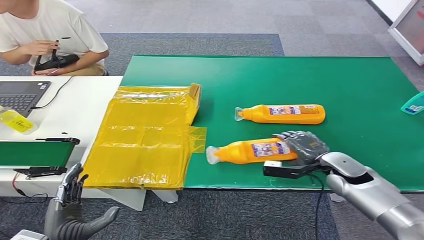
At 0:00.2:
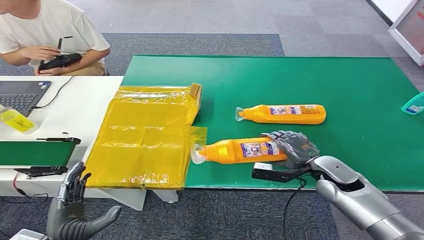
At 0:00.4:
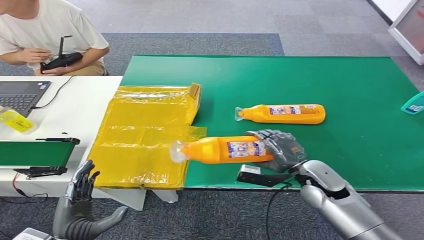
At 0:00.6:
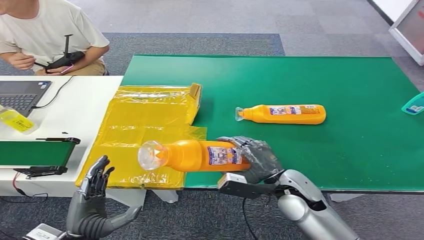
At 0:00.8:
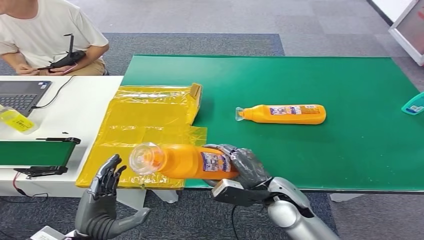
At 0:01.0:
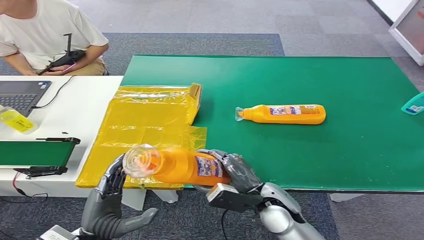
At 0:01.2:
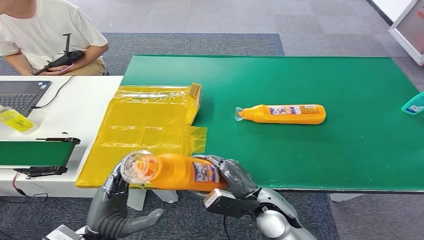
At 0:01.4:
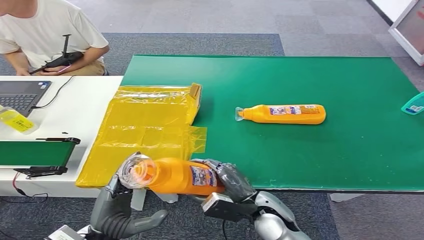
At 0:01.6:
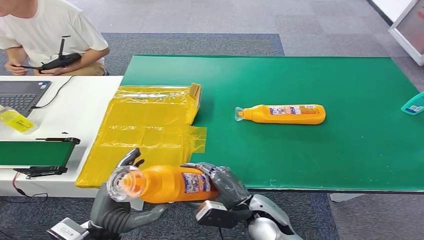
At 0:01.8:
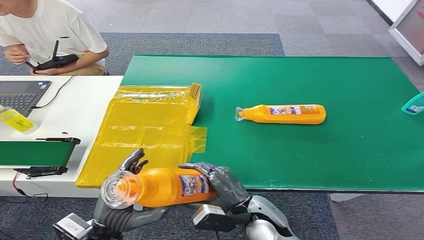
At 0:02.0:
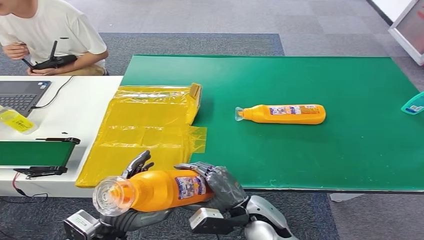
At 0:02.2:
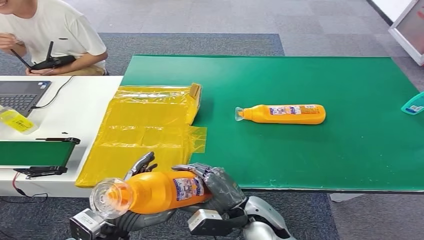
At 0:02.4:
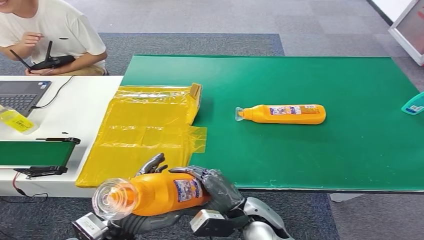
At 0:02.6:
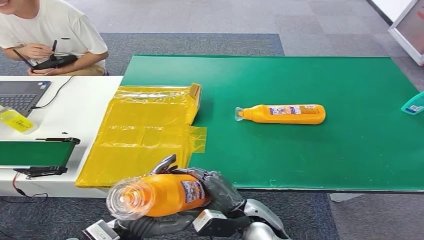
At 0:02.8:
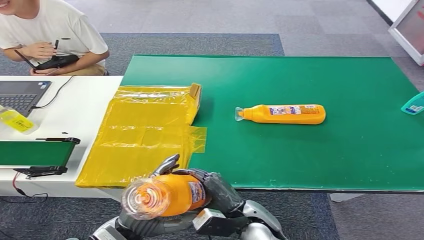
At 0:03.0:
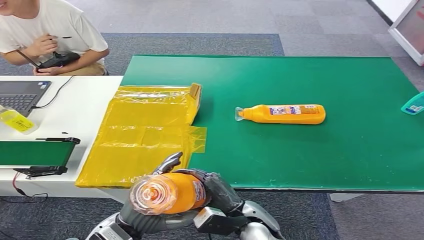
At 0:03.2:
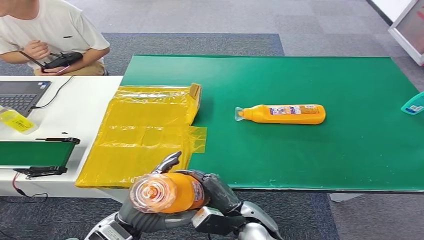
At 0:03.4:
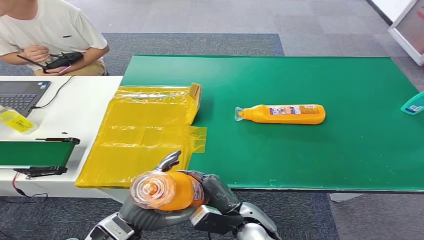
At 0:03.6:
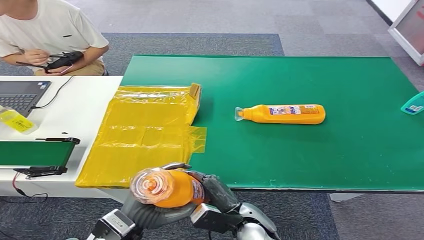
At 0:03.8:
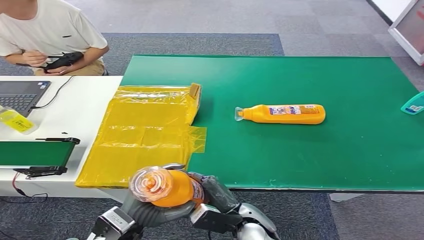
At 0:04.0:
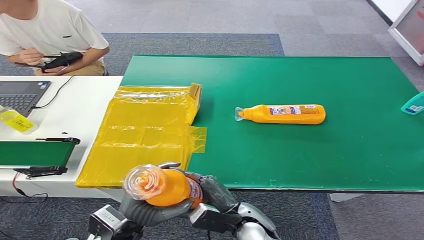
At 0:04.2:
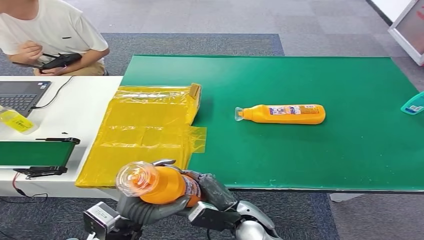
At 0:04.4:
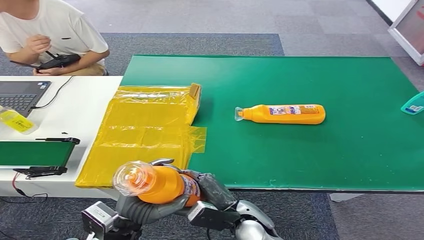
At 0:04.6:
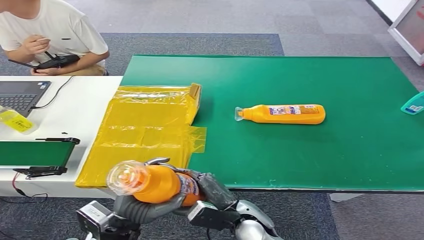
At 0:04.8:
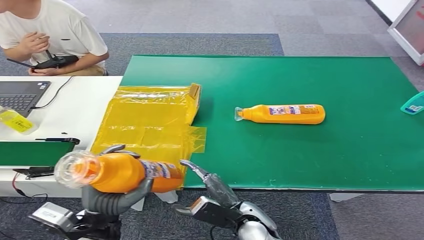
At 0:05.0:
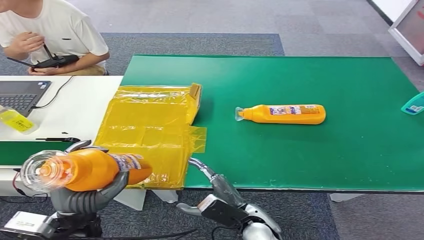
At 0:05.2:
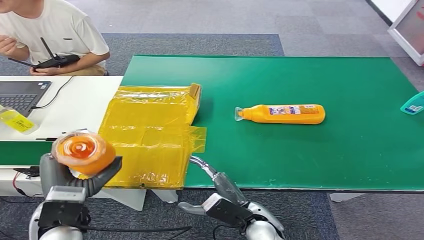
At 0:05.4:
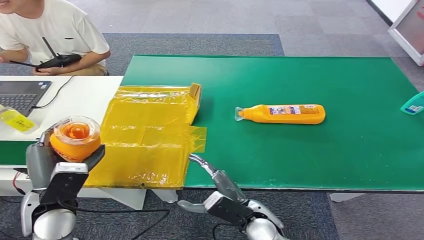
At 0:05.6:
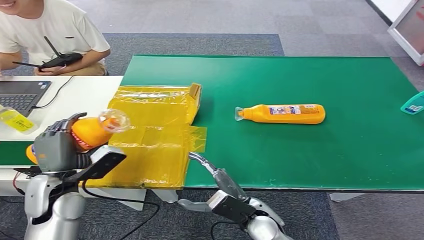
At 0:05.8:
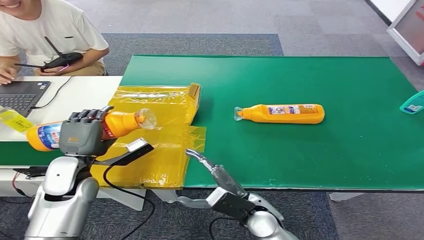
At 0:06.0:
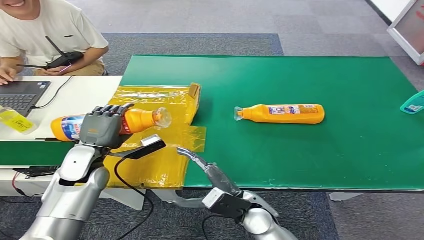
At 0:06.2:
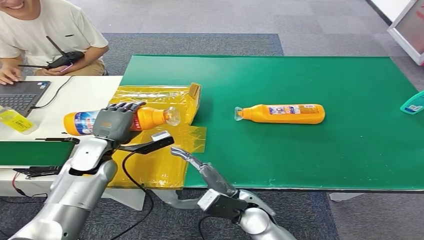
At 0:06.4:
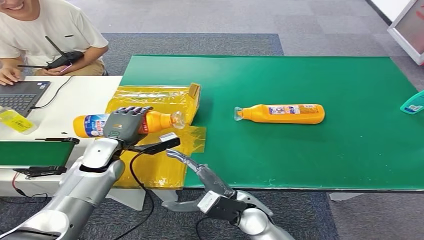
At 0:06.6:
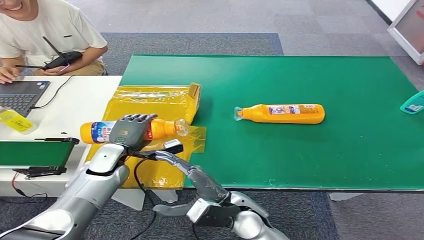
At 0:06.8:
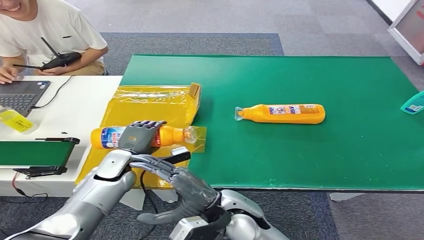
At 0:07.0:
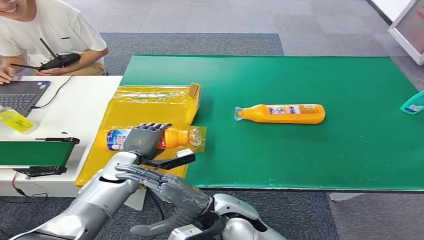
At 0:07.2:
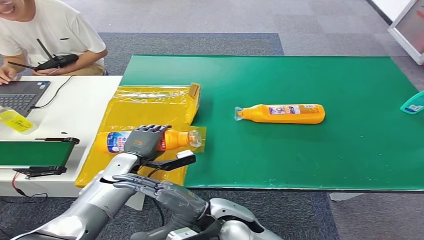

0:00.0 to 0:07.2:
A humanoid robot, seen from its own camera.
Step, 0:01.2 to 0:07.2: Turn the bottle to the front side.
0:00.0 to 0:01.4: The right hand heads to the left and backward, covering roughly 20 cm. Meanwhile the left hand shifts some 10 cm to the right.
0:01.4 to 0:04.4: There are only small adjustments of the hands.
0:04.4 to 0:05.8: The left hand travels forward and to the left by approximately 15 cm.
0:05.8 to 0:07.2: The right hand is displaced to the left and upward by some 10 cm. Meanwhile the left hand shifts roughly 10 cm downward and to the right.
